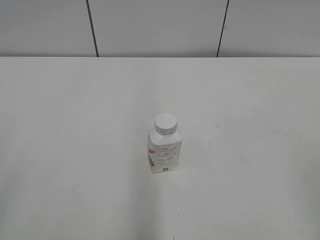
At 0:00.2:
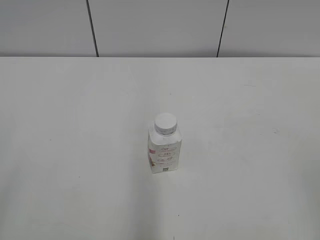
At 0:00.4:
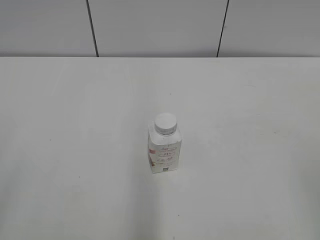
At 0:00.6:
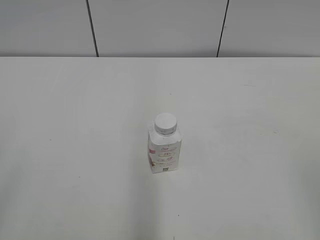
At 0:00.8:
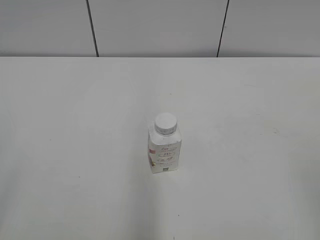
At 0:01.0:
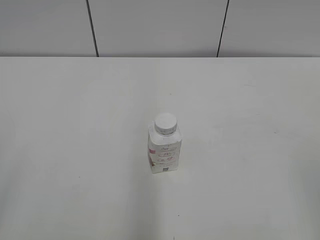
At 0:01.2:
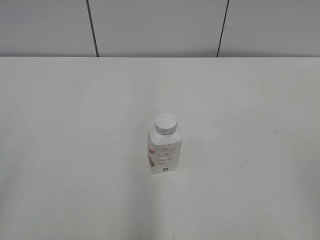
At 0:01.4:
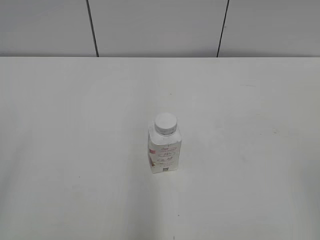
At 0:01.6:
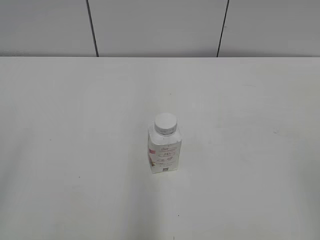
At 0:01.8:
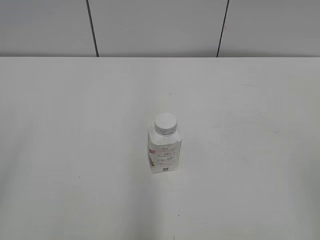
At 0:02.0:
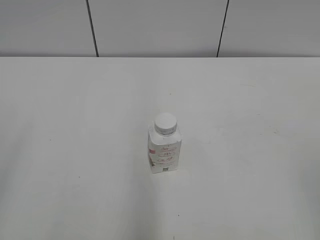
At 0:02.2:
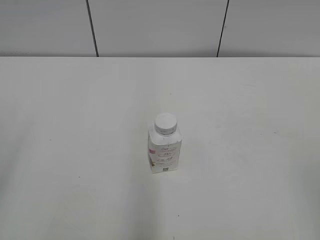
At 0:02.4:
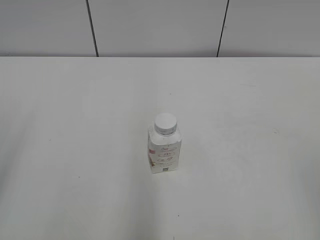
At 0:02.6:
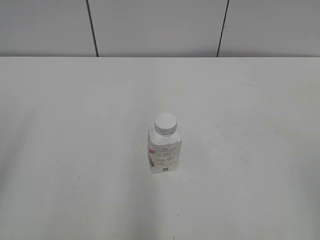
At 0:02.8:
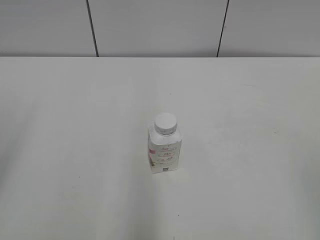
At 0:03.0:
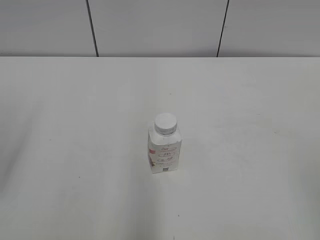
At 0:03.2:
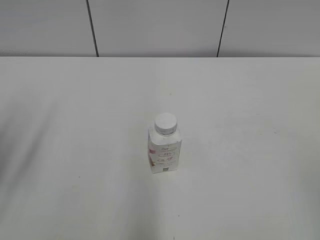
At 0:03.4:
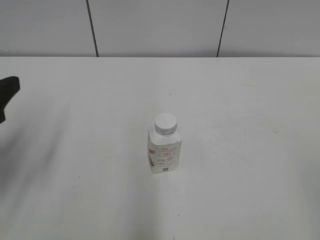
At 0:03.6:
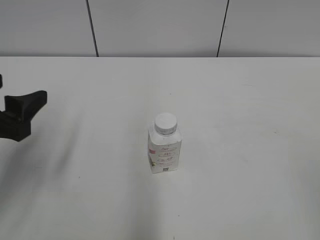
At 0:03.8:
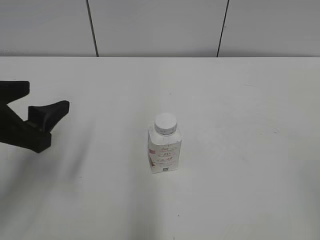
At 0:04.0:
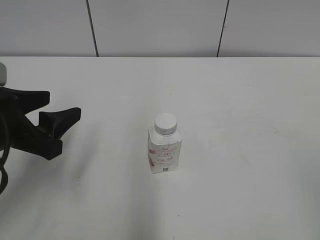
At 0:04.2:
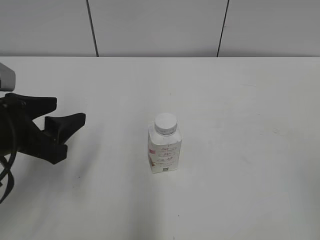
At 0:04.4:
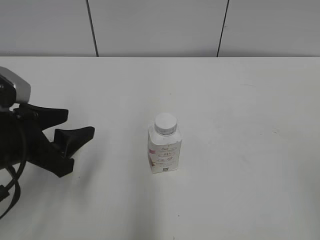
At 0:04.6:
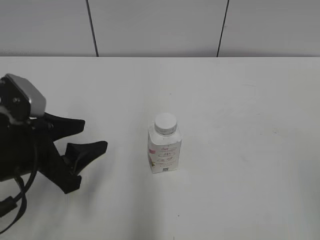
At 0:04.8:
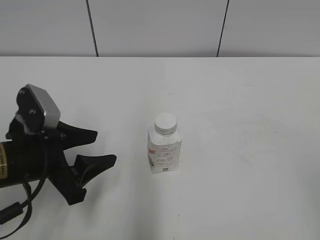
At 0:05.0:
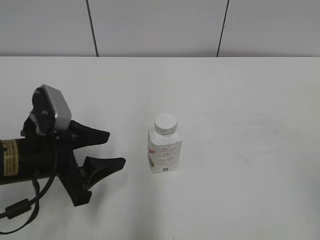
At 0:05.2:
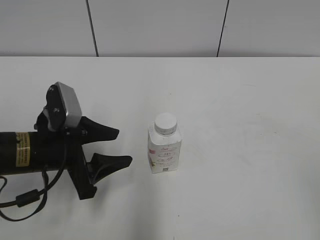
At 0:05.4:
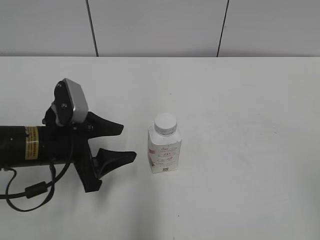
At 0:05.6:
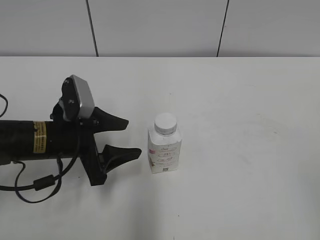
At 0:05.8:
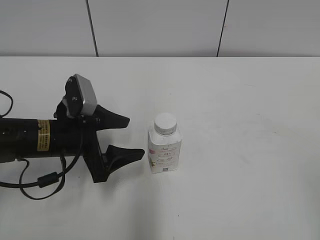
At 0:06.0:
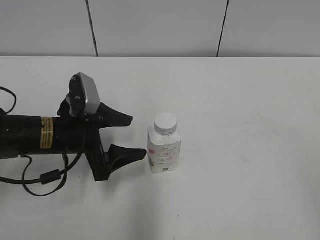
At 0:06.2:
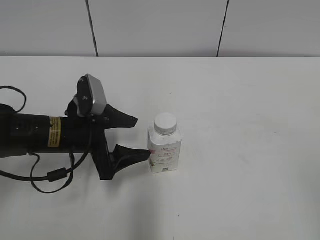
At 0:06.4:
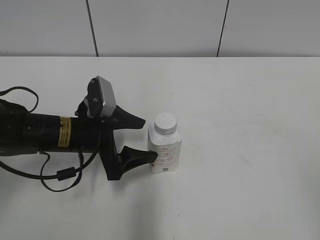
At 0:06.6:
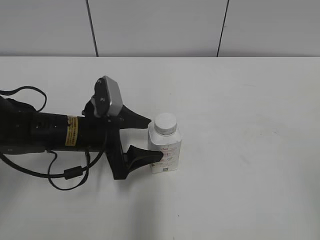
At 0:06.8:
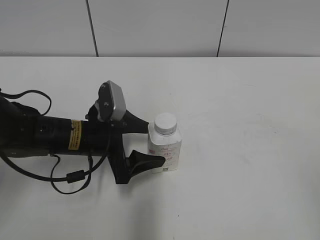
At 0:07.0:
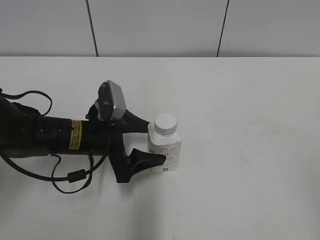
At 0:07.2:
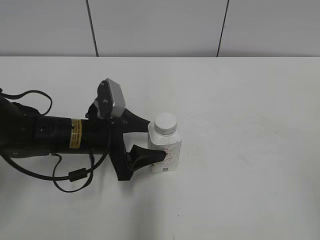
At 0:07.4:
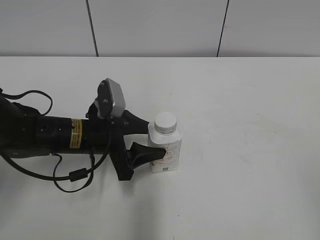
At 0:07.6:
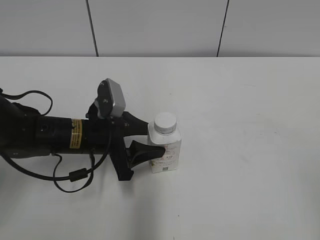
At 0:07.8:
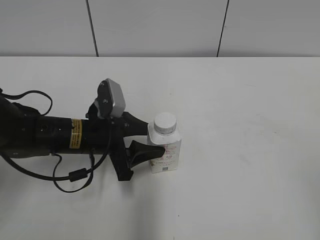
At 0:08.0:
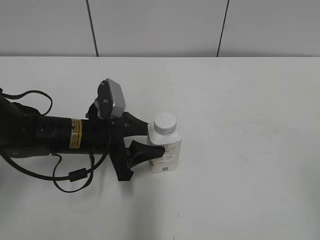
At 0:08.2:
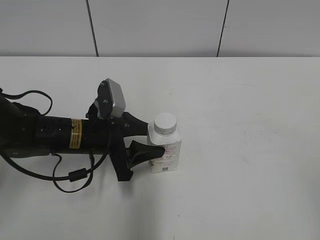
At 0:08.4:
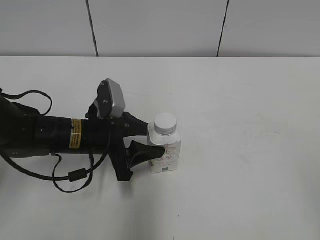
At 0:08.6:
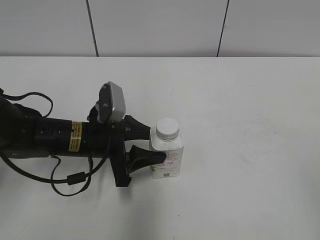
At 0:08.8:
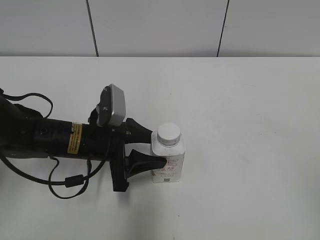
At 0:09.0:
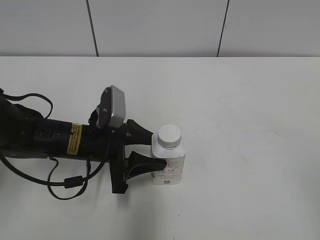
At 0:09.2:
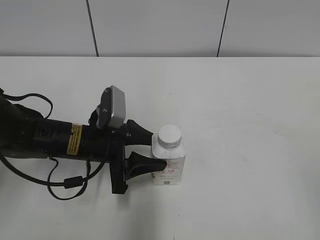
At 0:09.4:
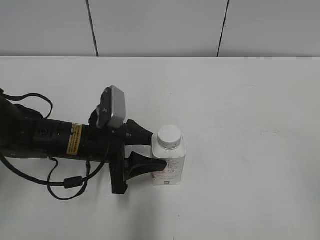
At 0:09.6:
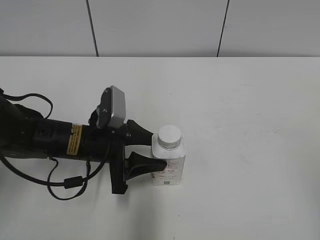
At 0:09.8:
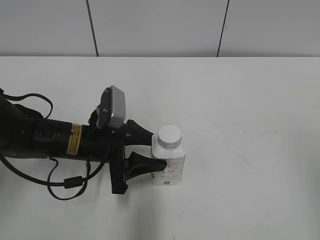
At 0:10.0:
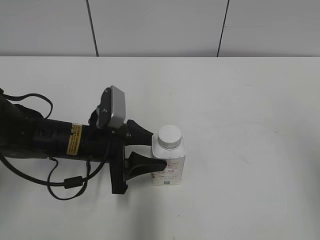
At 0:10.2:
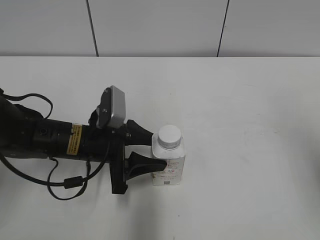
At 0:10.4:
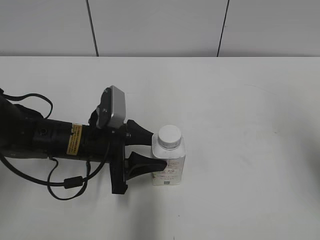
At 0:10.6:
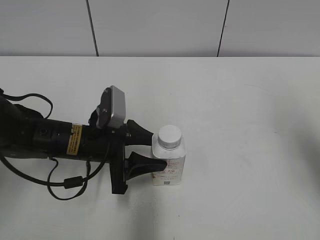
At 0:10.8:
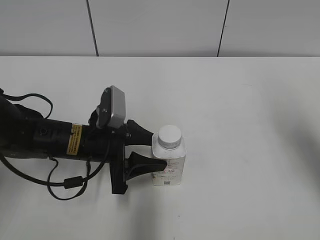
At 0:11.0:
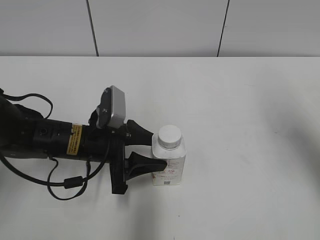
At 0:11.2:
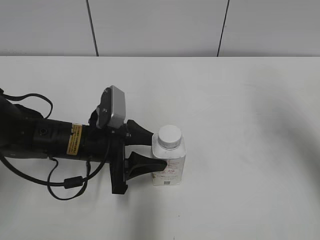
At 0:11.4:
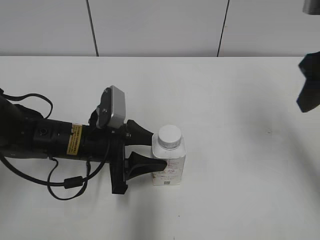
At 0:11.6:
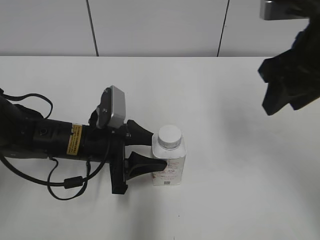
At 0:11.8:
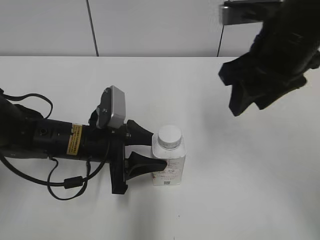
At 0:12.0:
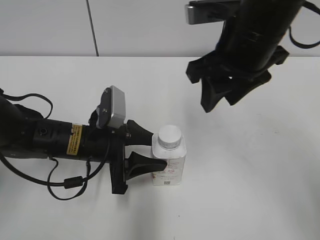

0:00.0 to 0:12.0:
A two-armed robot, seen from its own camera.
Step, 0:00.0 to 0:08.0: Grab the Yili Changqing with the left hand.
Step, 0:08.2 to 0:08.8: Move the Yili Changqing from left to right.
0:03.0 to 0:04.4: The left gripper heads downward, to the right and forward, covering approximately 15 cm, and closes up.
0:04.4 to 0:06.0: The left gripper shifts some 10 cm forward and downward, and opens.
0:06.0 to 0:07.6: The left gripper closes.
0:07.6 to 0:09.0: The grippers move only a little.
0:09.0 to 0:10.4: The right gripper is displaced forward by approximately 15 cm.
0:10.4 to 0:12.0: The right gripper shifts about 20 cm to the left and forward, and closes its fingers.

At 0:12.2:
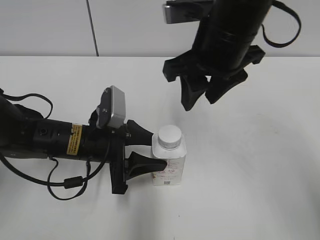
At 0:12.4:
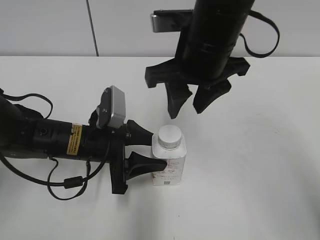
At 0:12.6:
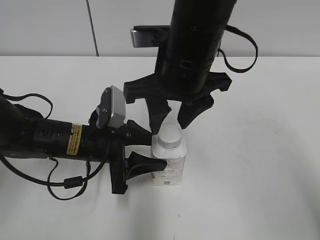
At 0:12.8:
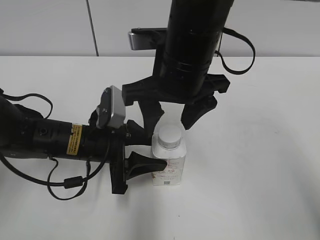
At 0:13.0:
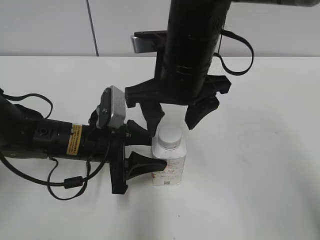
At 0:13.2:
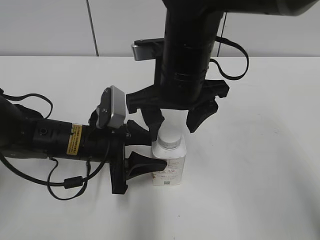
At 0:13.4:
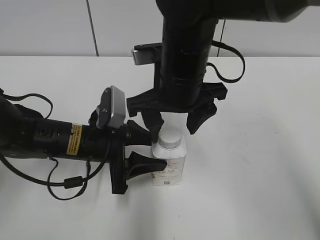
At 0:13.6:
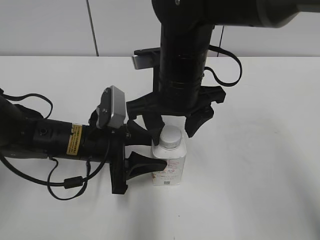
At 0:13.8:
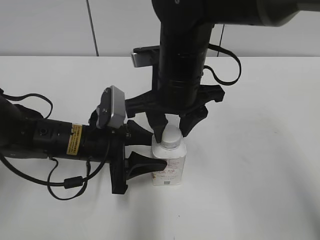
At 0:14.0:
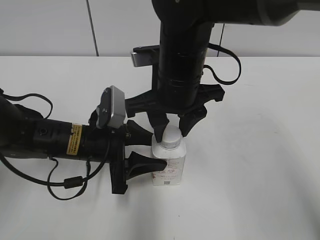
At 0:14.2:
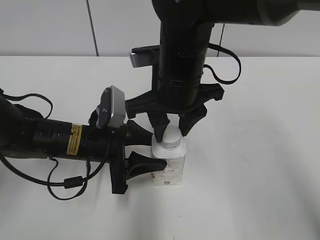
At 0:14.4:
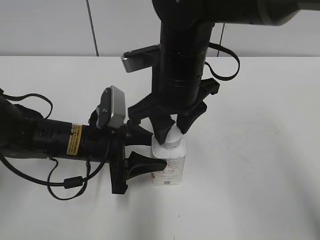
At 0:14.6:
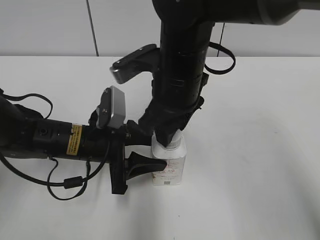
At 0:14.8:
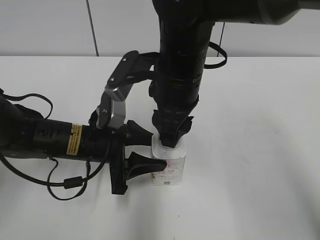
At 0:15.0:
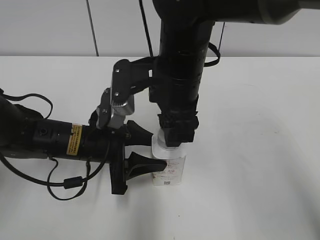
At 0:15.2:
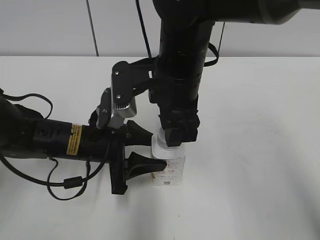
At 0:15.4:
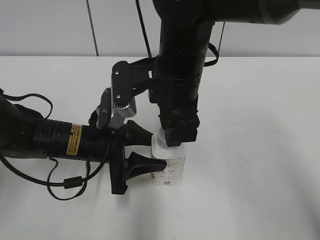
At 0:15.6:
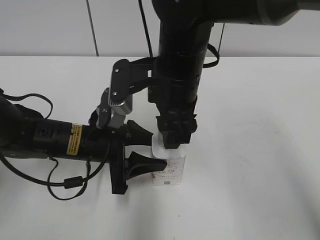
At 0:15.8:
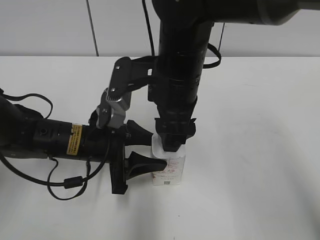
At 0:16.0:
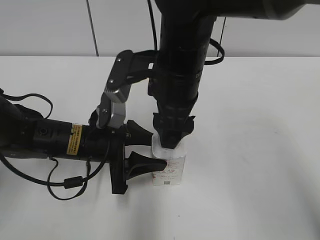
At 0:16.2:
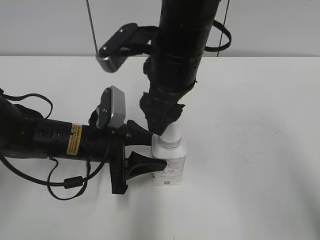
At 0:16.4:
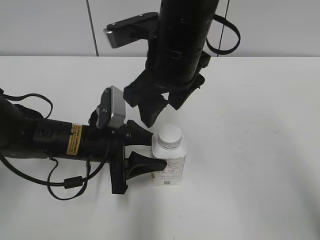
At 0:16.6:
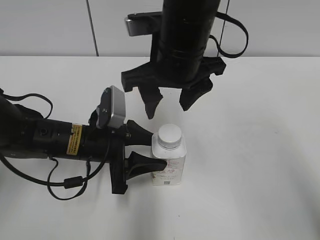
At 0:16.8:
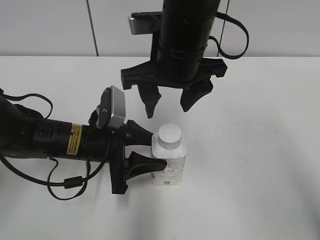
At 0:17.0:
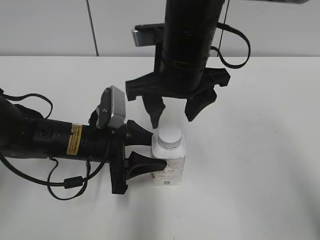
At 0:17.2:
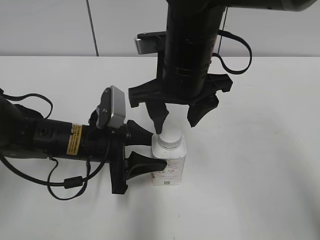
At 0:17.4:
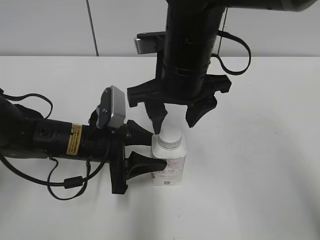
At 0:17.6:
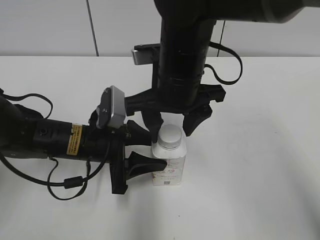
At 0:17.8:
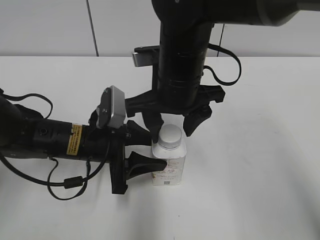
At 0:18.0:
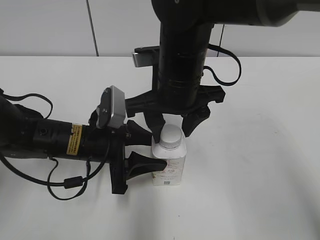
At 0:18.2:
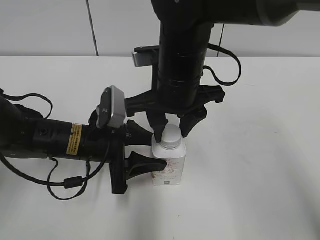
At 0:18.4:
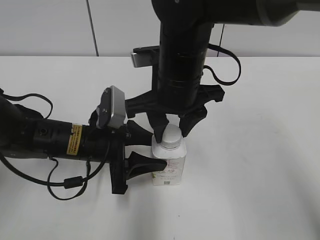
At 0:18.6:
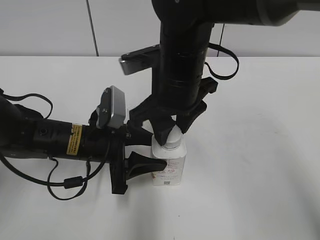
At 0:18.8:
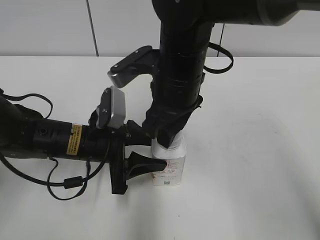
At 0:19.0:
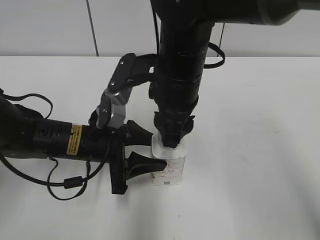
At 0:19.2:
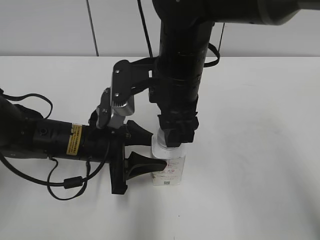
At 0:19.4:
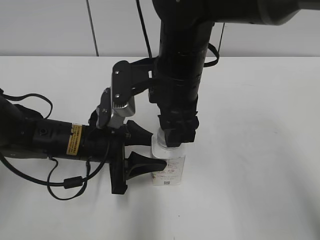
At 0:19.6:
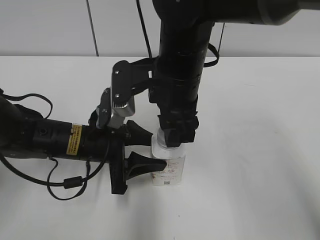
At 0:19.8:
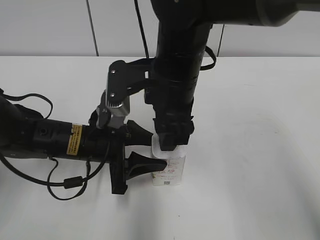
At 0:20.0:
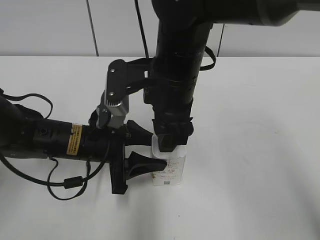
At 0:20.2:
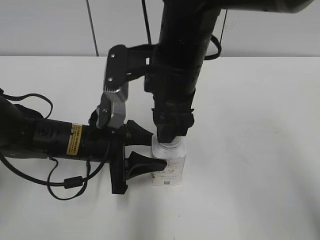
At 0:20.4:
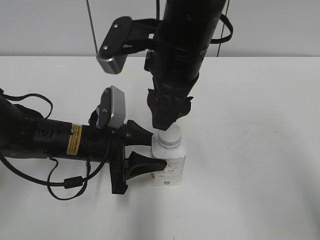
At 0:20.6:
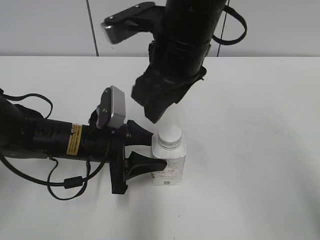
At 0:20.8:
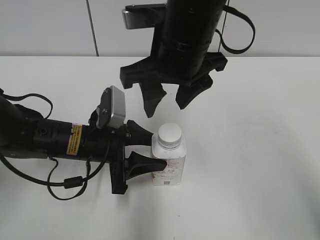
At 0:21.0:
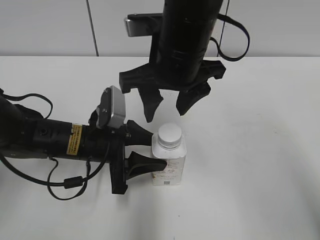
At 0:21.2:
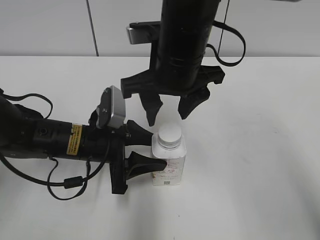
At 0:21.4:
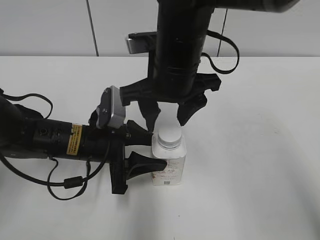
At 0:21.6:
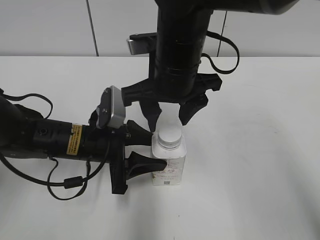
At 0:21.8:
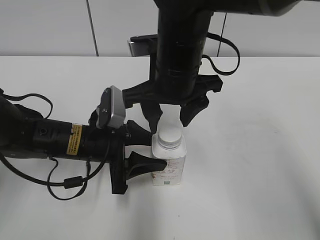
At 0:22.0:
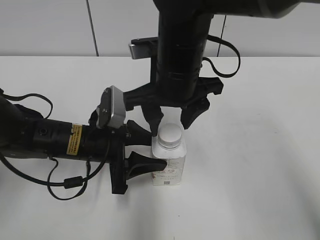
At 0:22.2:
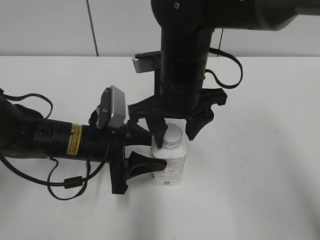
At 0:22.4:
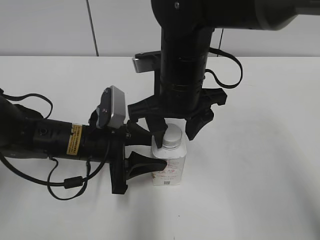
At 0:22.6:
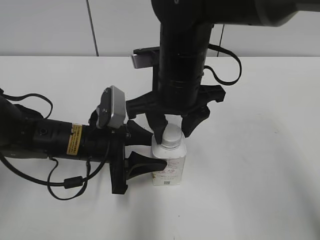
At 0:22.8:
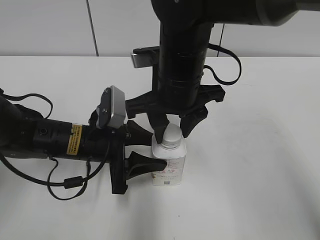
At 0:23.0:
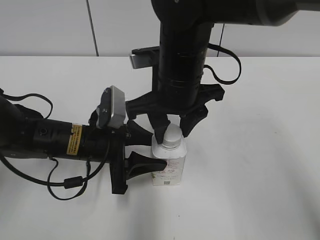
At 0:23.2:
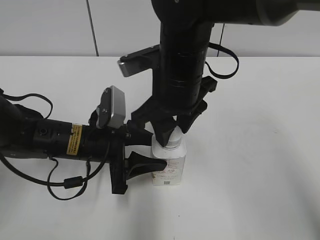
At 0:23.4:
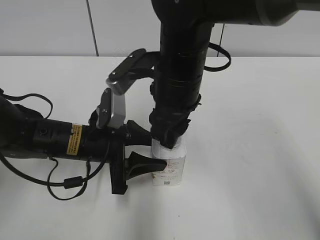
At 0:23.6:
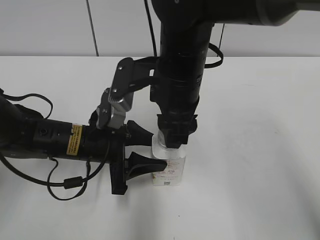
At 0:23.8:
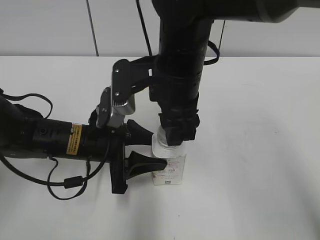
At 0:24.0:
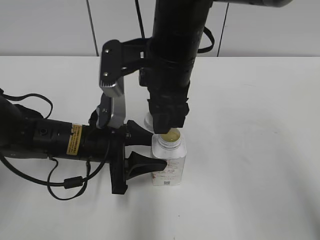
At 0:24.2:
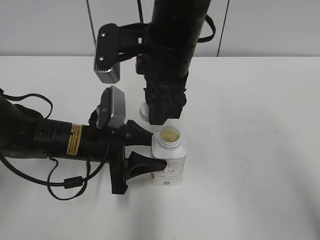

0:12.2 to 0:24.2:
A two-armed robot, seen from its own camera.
Step, 0:12.2 to 0:23.8: Twist the bottle cap with the right hand.
0:12.2 to 0:13.8: The right gripper goes roughly 10 cm downward and to the left, and opens, then closes again.
0:15.2 to 0:16.6: The right gripper opens its fingers.
0:16.6 to 0:18.2: The right gripper closes its fingers.
0:21.2 to 0:22.6: The grippers make only small movements.
